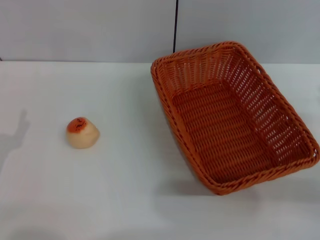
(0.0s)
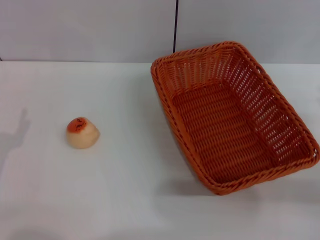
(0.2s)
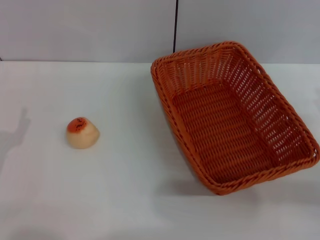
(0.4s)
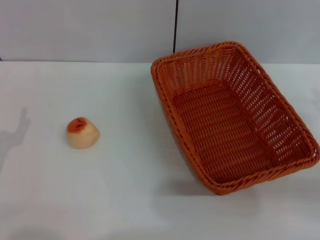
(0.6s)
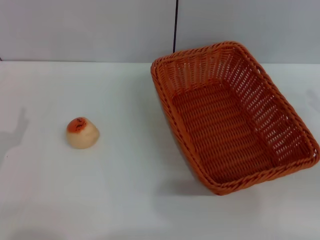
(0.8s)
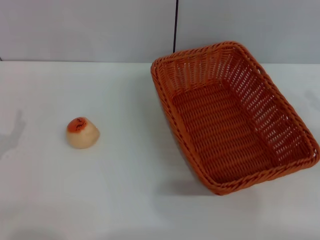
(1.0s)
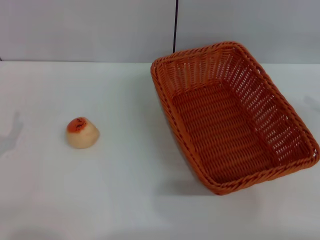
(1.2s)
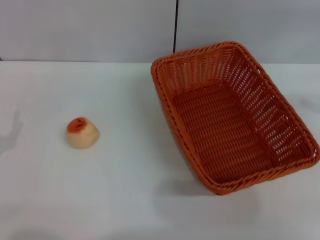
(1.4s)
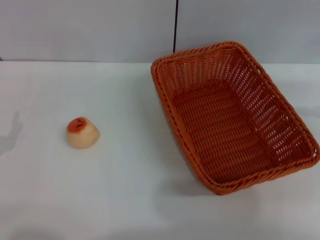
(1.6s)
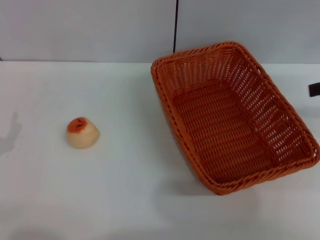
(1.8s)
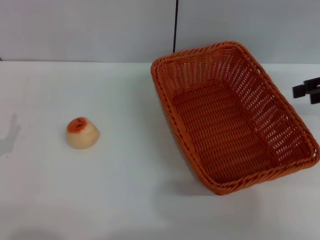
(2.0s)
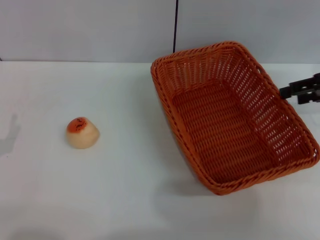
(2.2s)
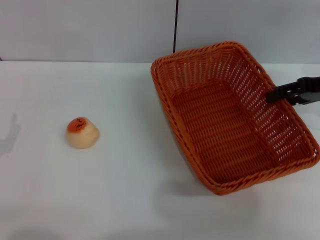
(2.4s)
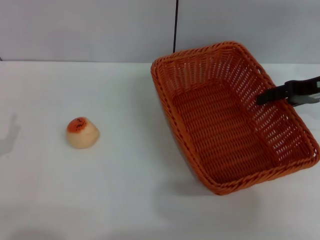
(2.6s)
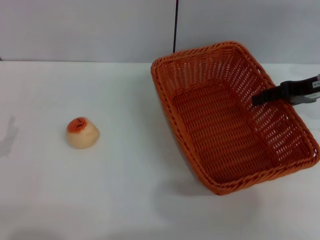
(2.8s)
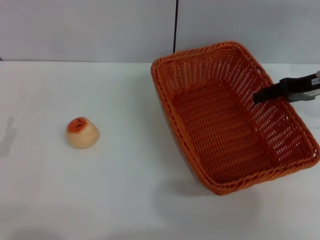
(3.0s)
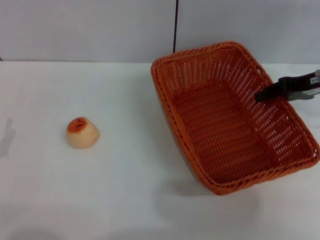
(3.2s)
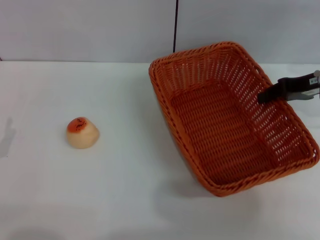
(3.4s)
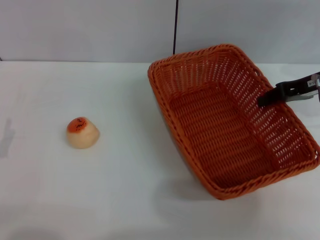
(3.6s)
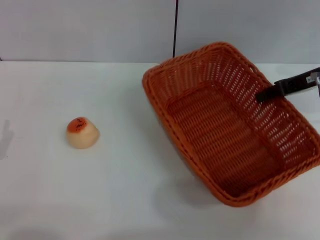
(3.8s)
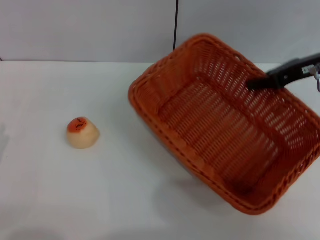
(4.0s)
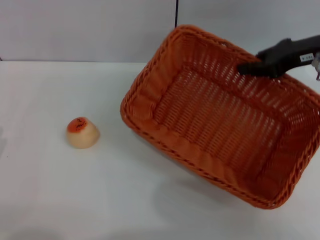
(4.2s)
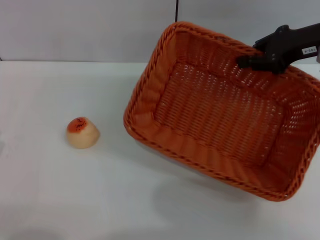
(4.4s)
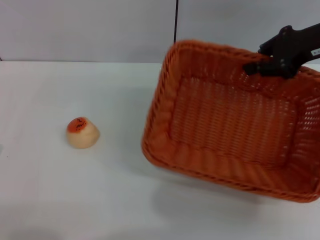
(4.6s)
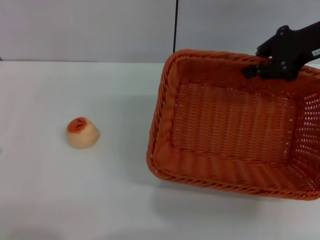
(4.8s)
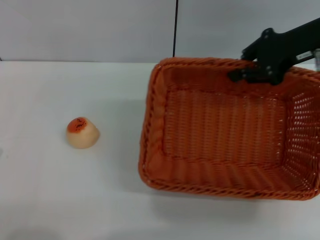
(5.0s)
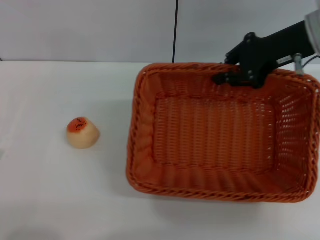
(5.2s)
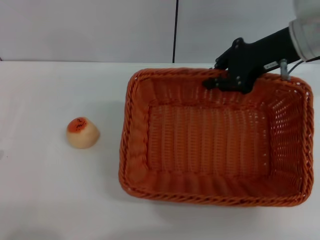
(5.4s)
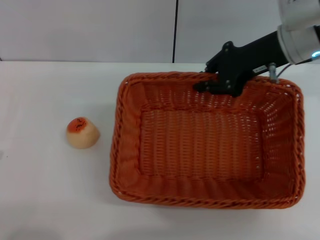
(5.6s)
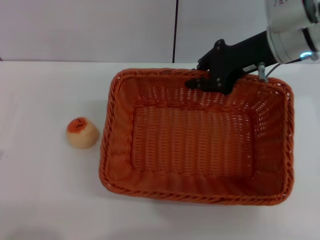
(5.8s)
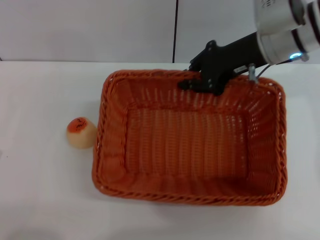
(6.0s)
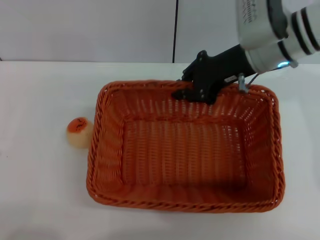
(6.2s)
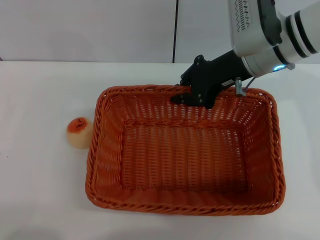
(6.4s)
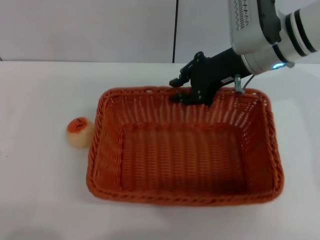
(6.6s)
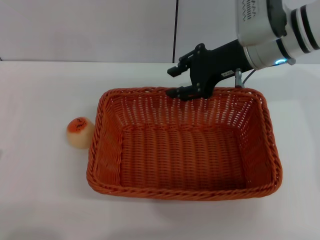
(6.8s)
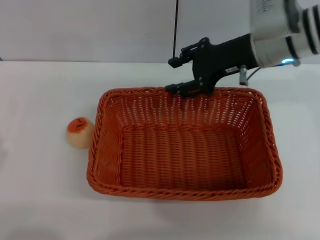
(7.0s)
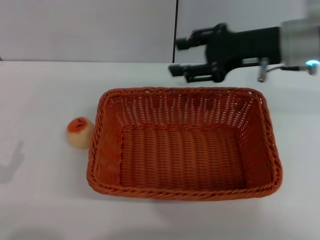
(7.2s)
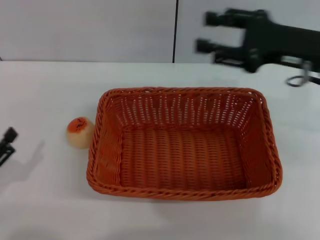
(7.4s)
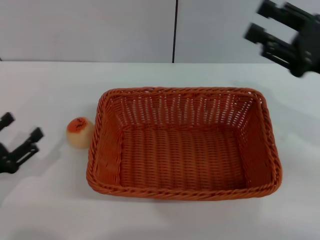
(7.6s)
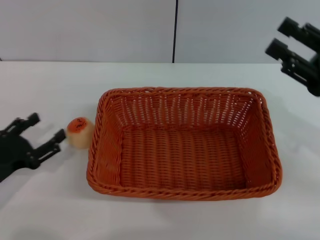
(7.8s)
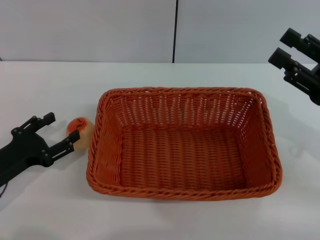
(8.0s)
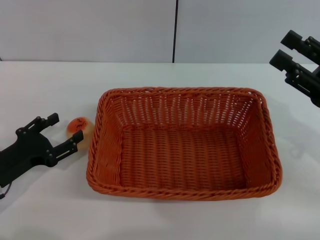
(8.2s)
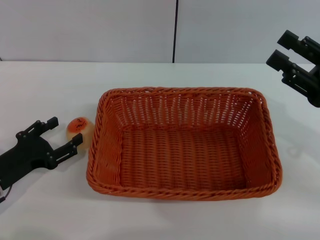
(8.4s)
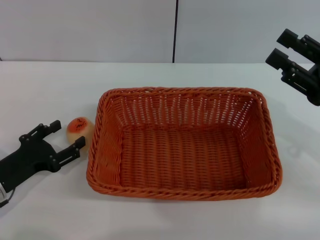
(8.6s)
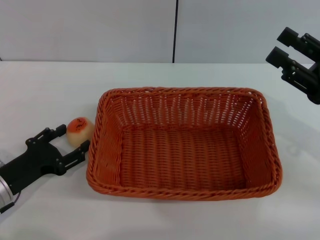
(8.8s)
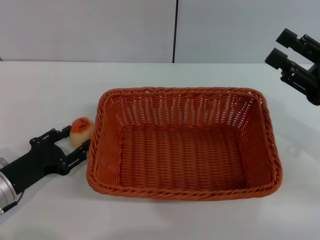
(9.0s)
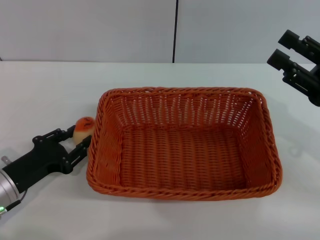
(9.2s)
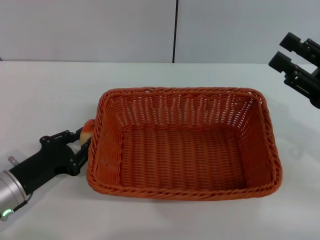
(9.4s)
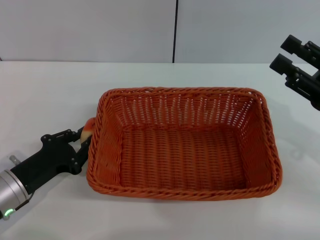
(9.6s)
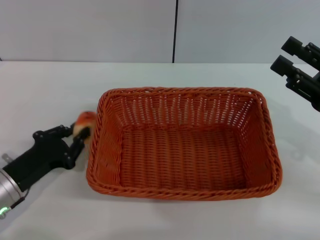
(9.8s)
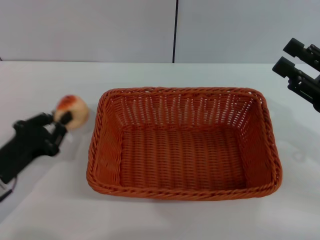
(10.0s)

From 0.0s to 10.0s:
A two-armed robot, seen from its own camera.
Step, from 0.0s to 7.0s: Move the basket to the center of view with the right gripper.
Step, from 7.2s to 10.0s: Pick up the egg yolk pastry with the left gripper.
From 0.0s to 1.4s: The right gripper goes approximately 20 cm upward, forward and to the right.
From 1.4s to 2.8s: The right gripper shifts some 15 cm to the left, forward and downward.
From 2.8s to 4.2s: The right gripper heads upward, covering approximately 5 cm, and closes.
From 4.2s to 5.8s: The right gripper goes about 10 cm to the left.
From 5.8s to 7.2s: The right gripper opens.
From 7.2s to 8.6s: The right gripper moves backward, to the right and downward, roughly 15 cm. Meanwhile the left gripper goes about 10 cm forward.
From 8.6s to 10.0s: The left gripper closes up.

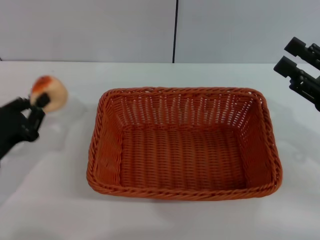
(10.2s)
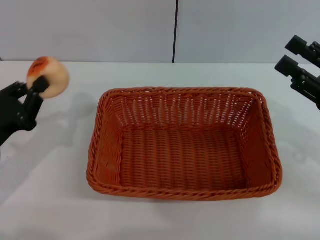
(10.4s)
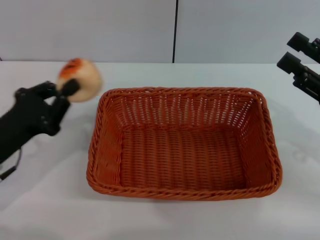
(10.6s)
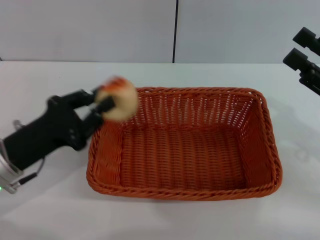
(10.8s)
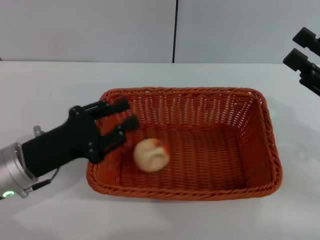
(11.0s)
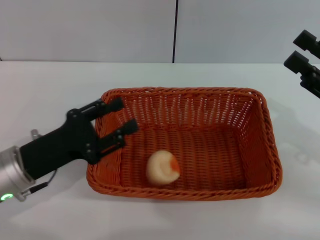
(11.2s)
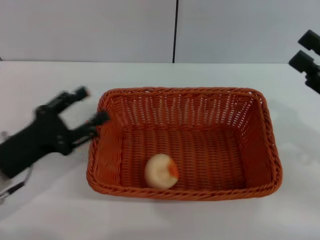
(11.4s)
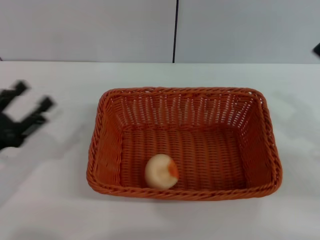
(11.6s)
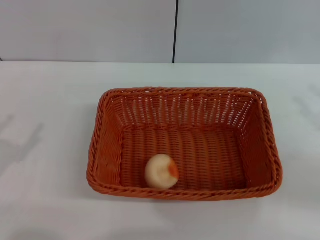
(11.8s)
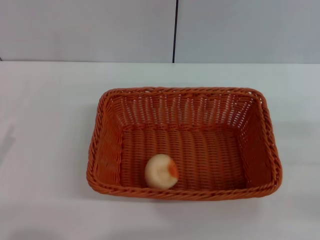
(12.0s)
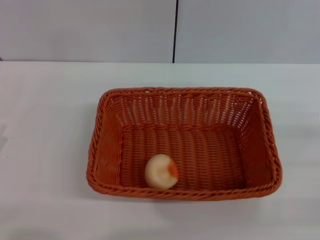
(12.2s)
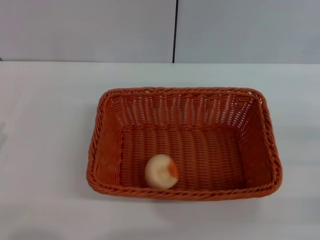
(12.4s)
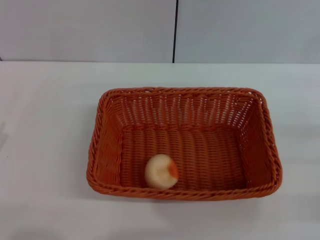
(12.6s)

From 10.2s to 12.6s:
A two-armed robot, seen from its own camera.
Step, from 10.2s to 11.0s: Place the egg yolk pastry into the basket with the left gripper.
From 10.2s to 11.4s: The left gripper opens up.
From 11.4s to 12.6s: The left gripper is displaced to the left and backward by about 10 cm; the right gripper travels to the right and downward by about 10 cm.

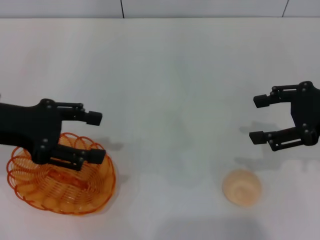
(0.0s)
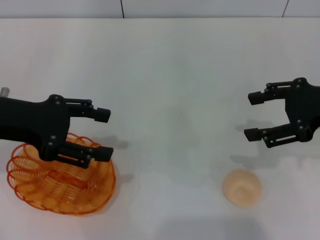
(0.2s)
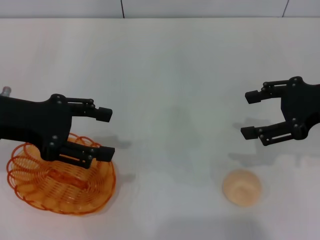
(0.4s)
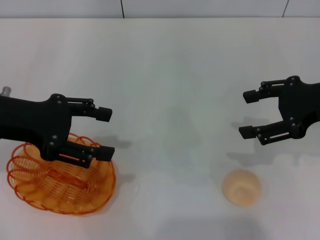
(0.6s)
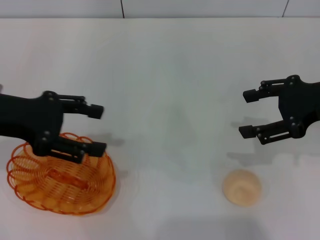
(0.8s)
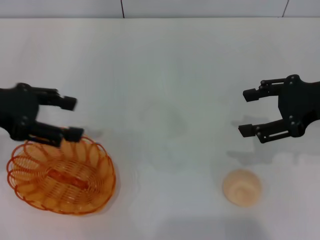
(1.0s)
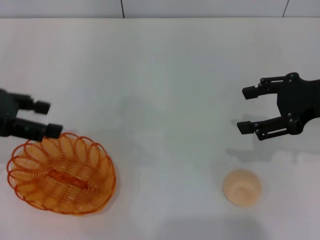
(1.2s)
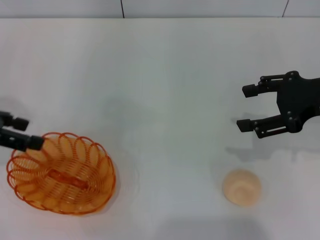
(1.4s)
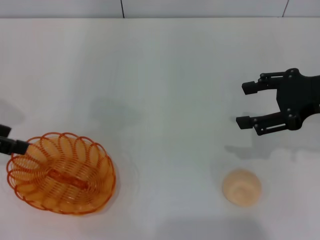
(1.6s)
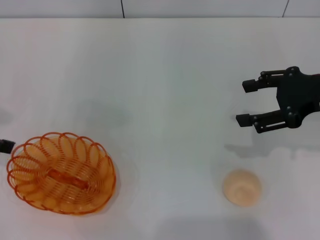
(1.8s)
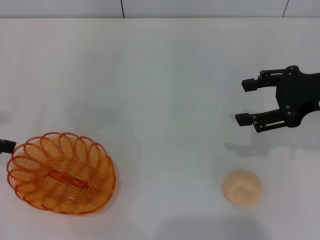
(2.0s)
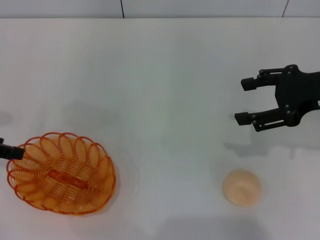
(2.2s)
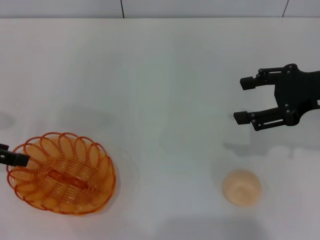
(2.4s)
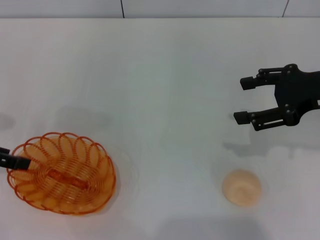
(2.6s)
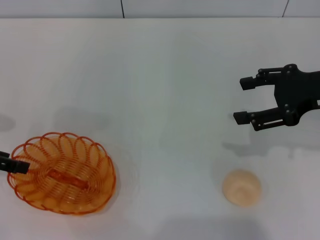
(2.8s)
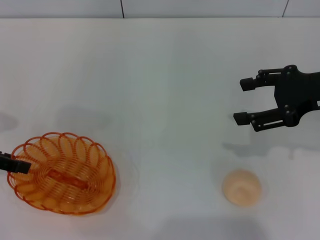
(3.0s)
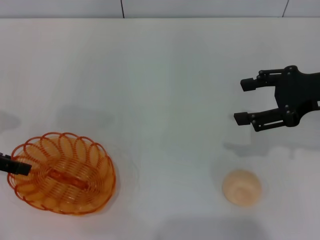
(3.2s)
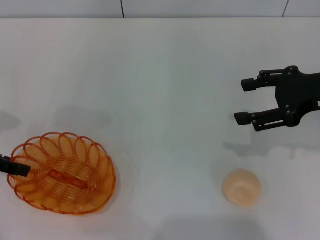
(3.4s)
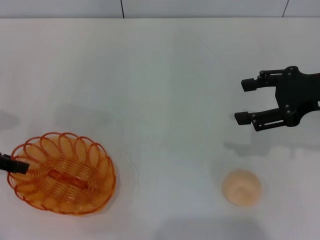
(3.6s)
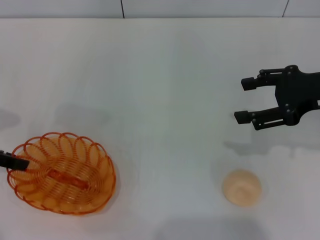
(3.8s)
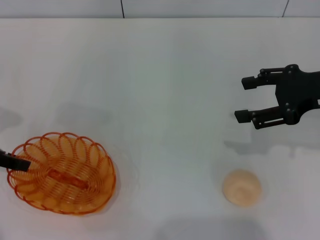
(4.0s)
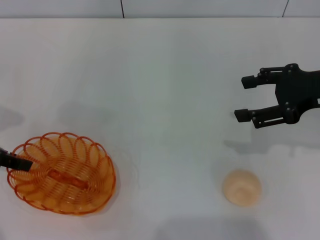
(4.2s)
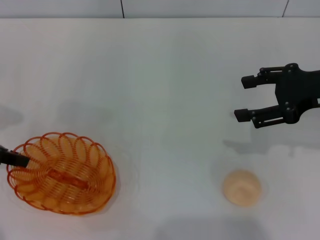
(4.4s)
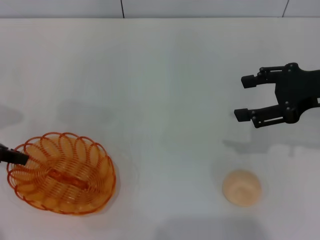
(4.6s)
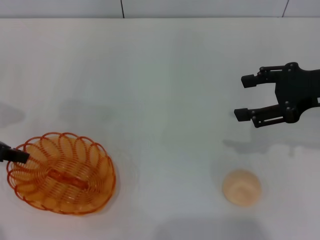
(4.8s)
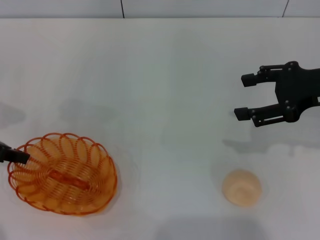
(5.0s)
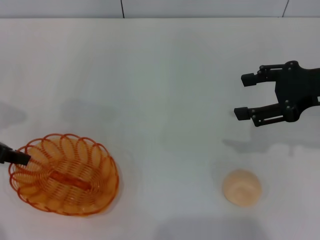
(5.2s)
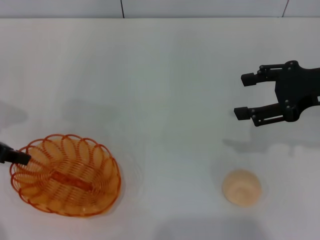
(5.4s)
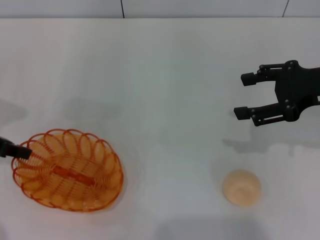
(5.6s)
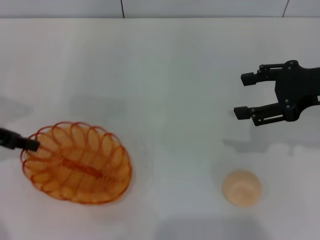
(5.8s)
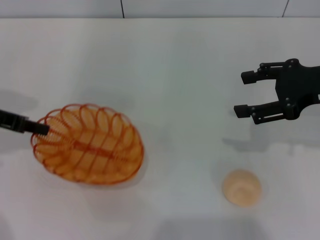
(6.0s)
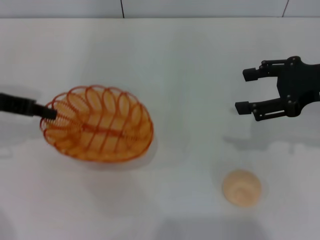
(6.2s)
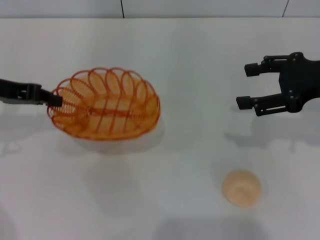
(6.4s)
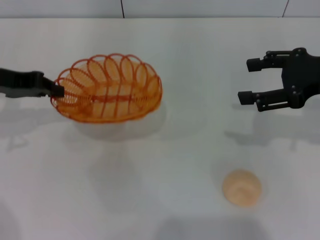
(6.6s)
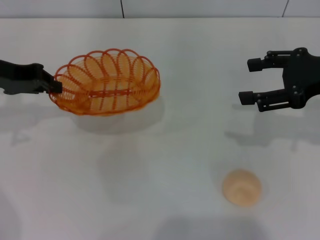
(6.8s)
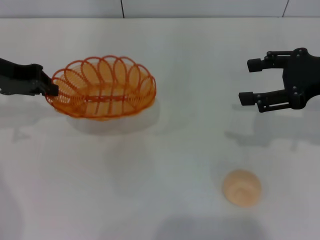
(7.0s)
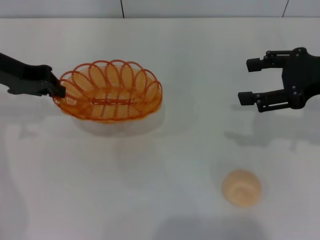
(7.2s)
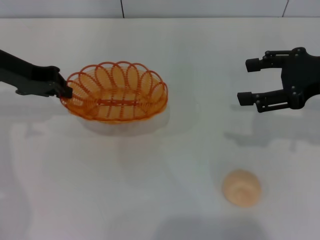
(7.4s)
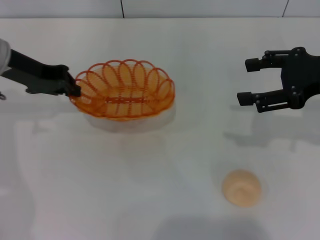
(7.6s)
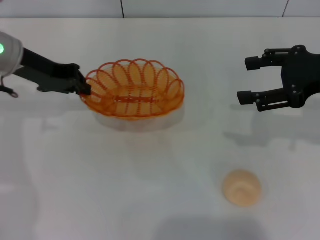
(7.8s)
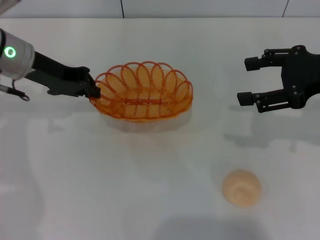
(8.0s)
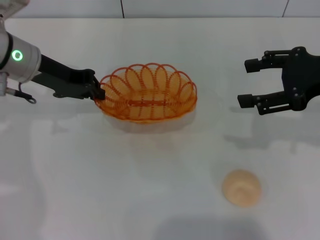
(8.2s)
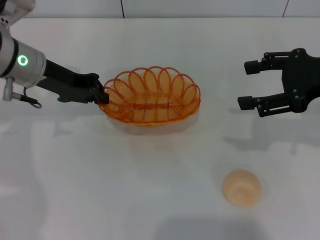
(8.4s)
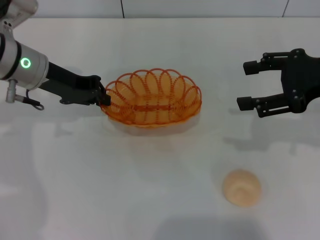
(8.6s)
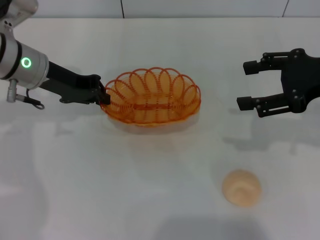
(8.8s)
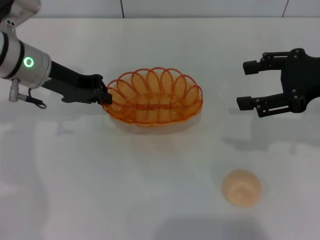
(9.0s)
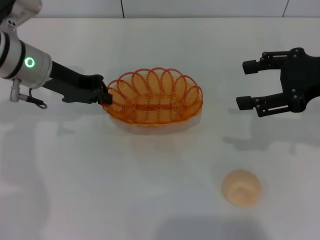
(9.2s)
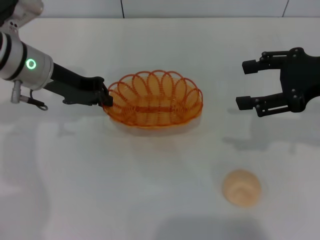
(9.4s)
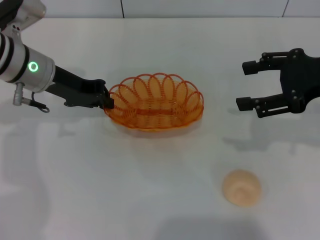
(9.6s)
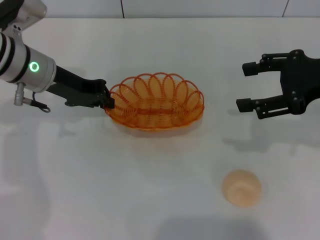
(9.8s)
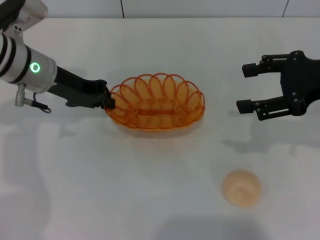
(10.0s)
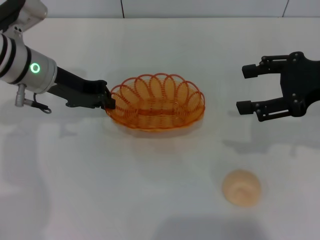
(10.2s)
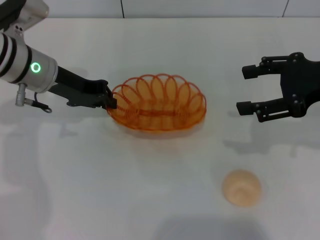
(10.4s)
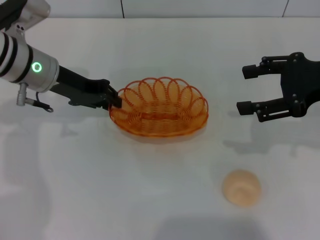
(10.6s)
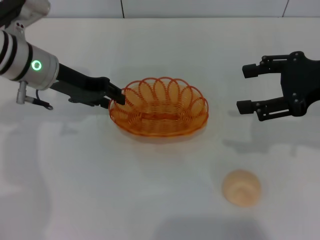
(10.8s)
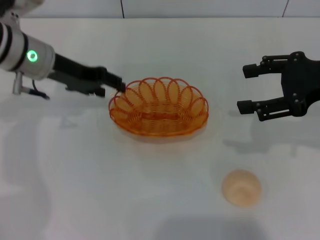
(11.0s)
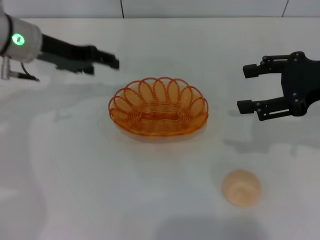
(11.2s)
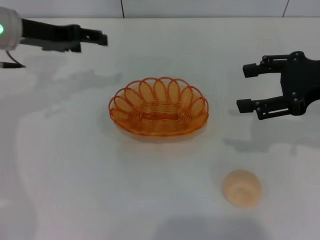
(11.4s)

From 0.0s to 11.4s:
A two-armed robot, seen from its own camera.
Step, from 0.0s to 6.2s: Pick up the basket with the left gripper.
Step, from 6.6s to 11.0s: Place the basket in the center of view with the left gripper.
From 0.0s to 1.4s: The left gripper heads to the left, covering some 5 cm.
From 1.4s to 2.8s: The left gripper is displaced downward by about 5 cm.
From 4.2s to 5.6s: The left gripper closes.
From 5.6s to 7.2s: The left gripper shifts roughly 10 cm forward and to the right.
From 7.2s to 8.6s: The left gripper heads to the right, covering some 5 cm.
From 8.6s to 10.0s: Neither gripper changes place.
From 10.0s to 11.4s: The left gripper changes place by roughly 5 cm, and opens.
